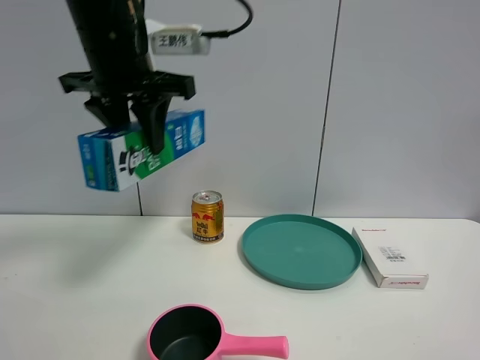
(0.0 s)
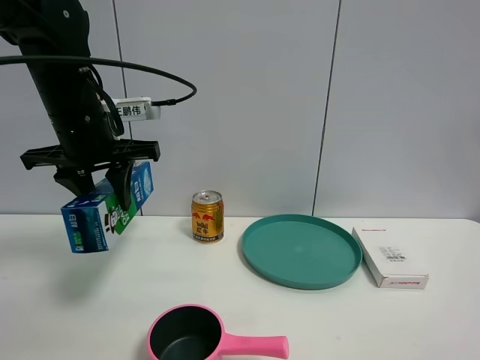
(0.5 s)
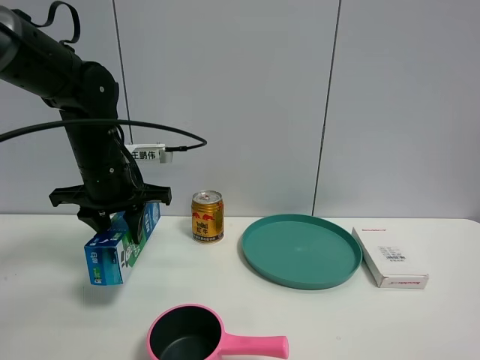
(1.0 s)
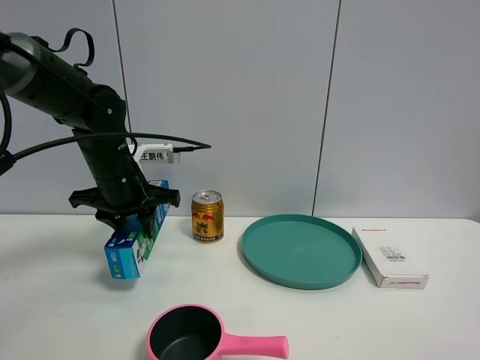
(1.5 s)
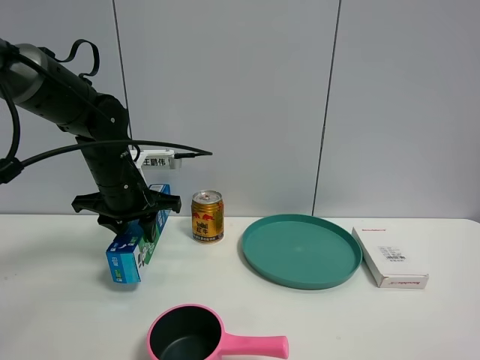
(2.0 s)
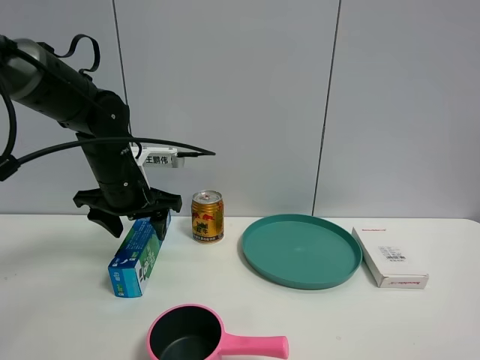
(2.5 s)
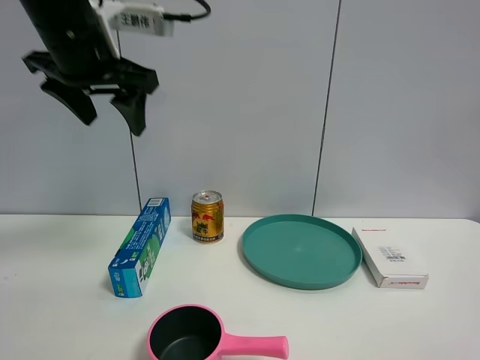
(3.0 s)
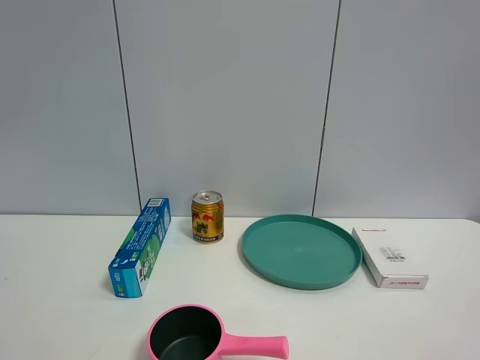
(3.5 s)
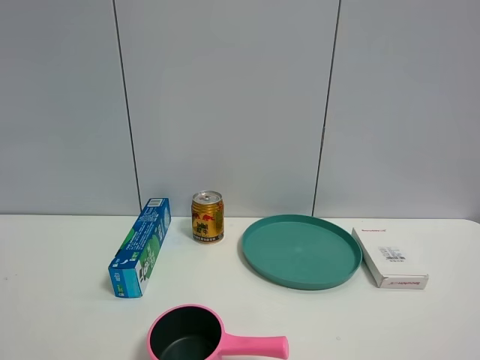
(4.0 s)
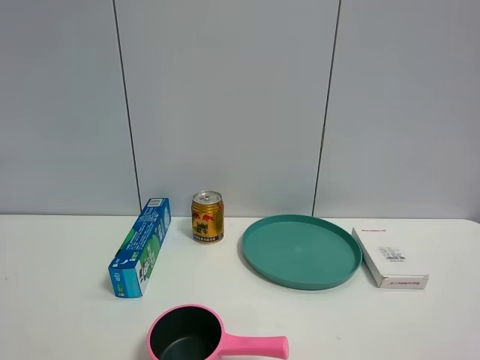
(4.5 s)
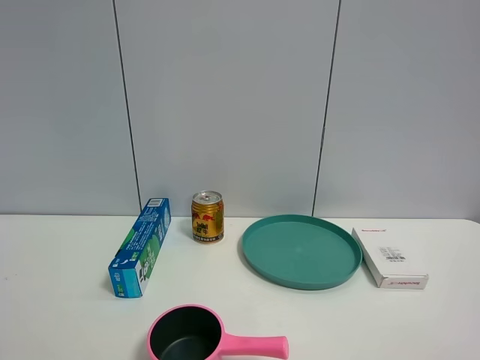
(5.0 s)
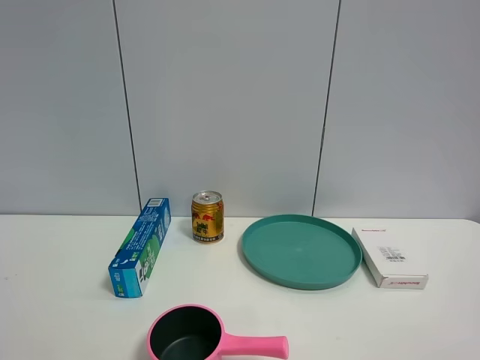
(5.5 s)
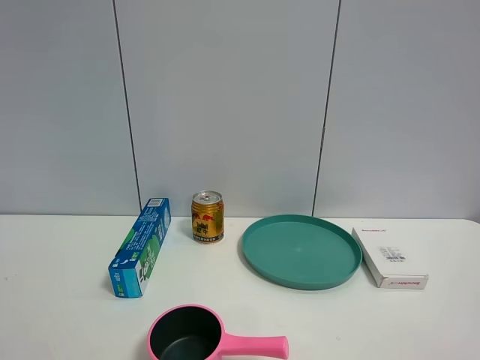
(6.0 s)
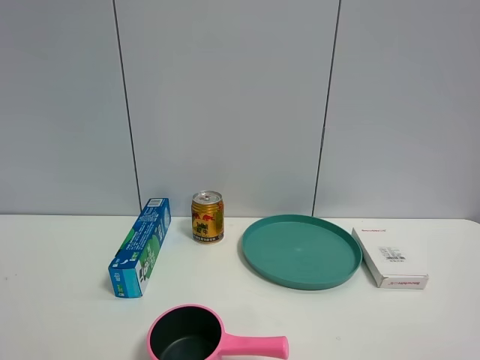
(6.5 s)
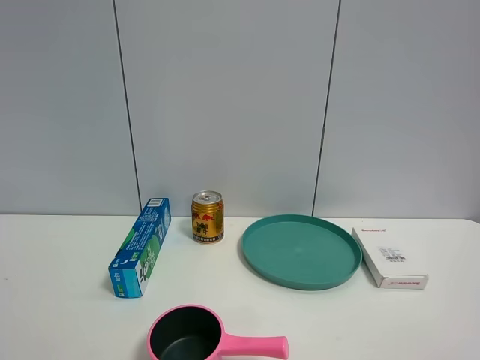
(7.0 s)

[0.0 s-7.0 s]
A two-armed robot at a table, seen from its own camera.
Task of the whole recording: the gripper move the object.
Step, 0.0 to 2.0 s: Place the toothpaste on the table with the left gripper.
0.0 to 2.0 s: The left gripper shifts about 15 cm downward.
2.0 to 3.5 s: The left gripper moves upward and backward, approximately 40 cm, and opens.

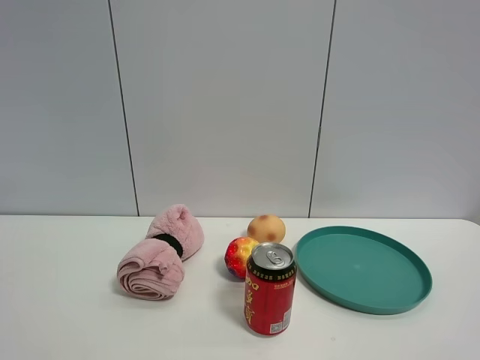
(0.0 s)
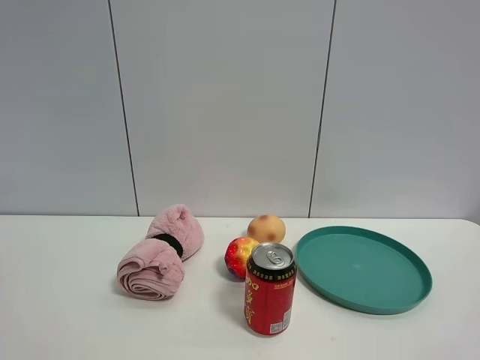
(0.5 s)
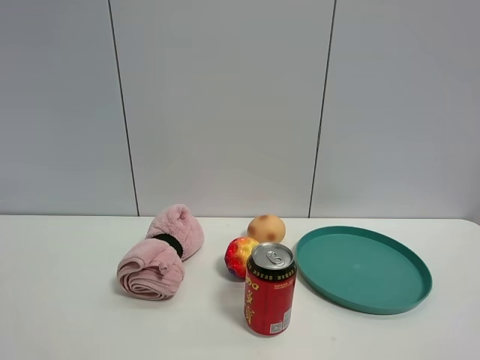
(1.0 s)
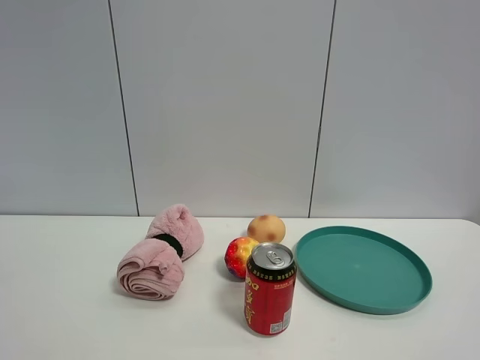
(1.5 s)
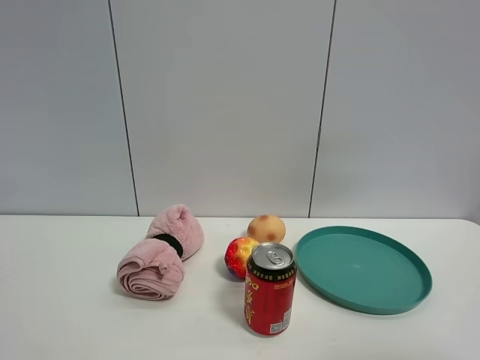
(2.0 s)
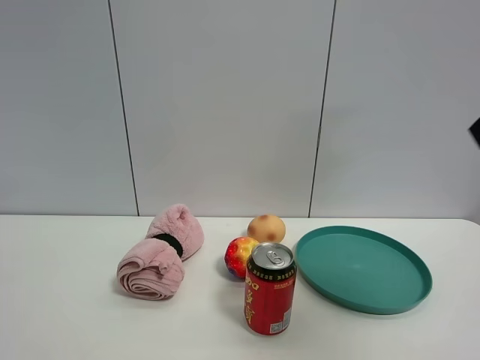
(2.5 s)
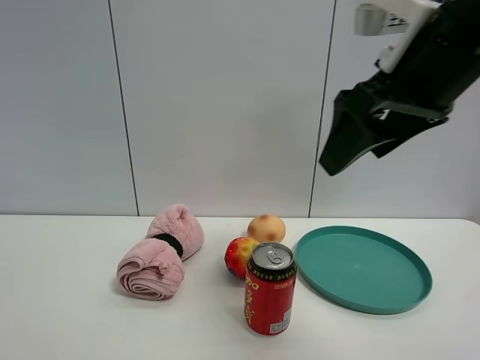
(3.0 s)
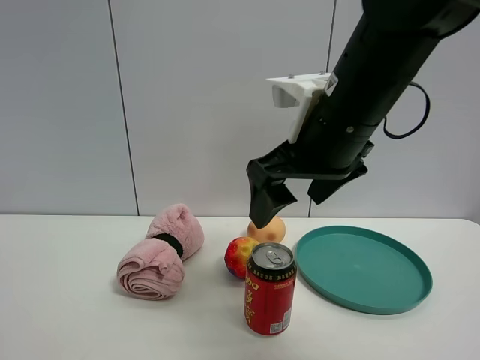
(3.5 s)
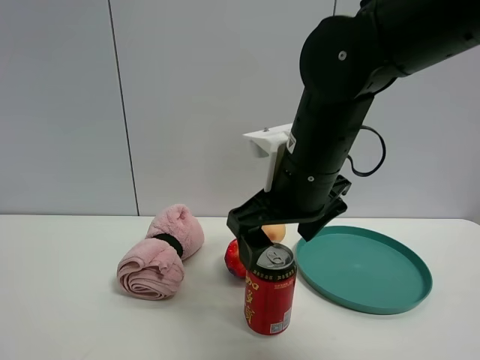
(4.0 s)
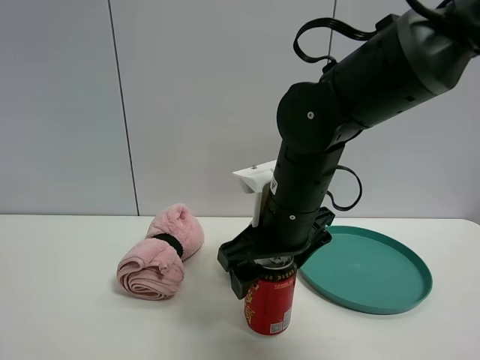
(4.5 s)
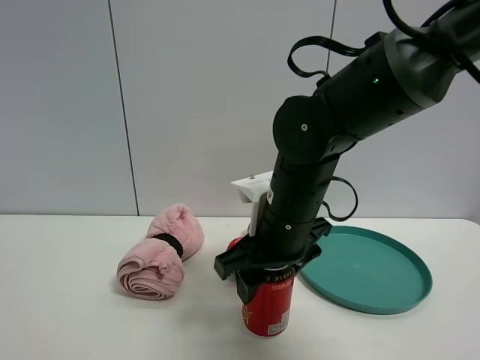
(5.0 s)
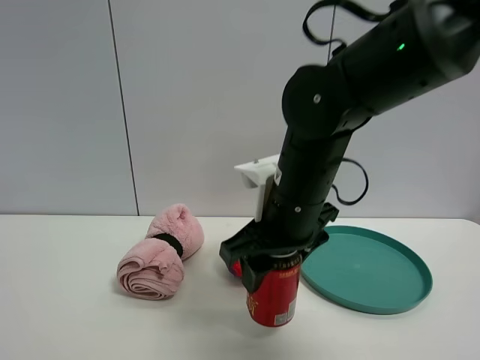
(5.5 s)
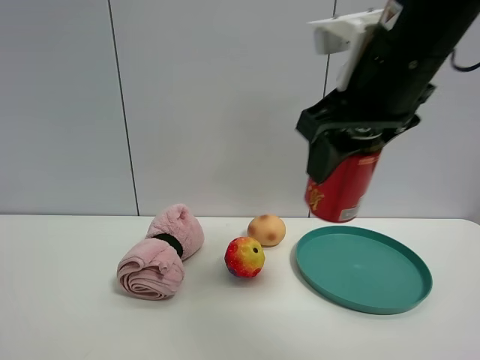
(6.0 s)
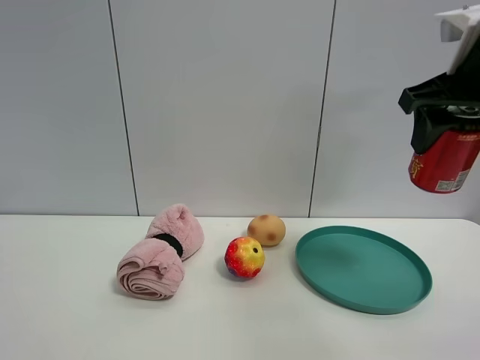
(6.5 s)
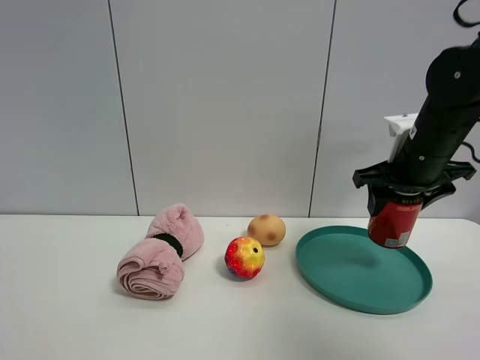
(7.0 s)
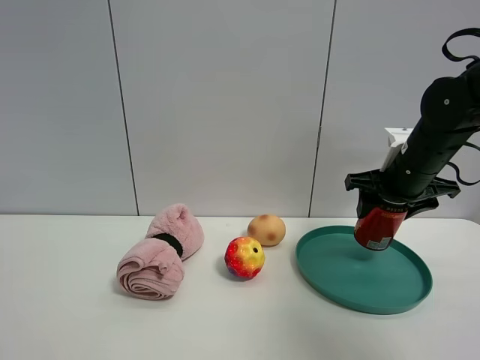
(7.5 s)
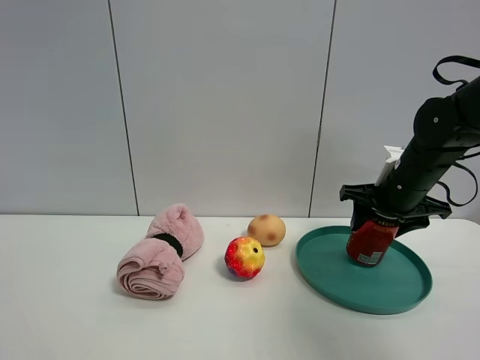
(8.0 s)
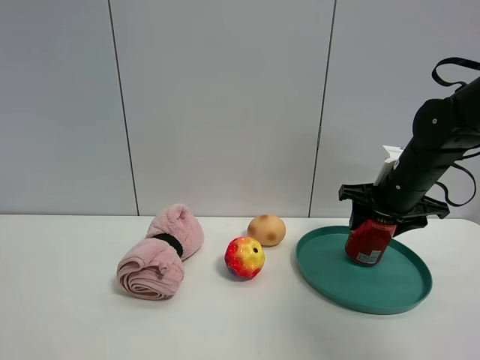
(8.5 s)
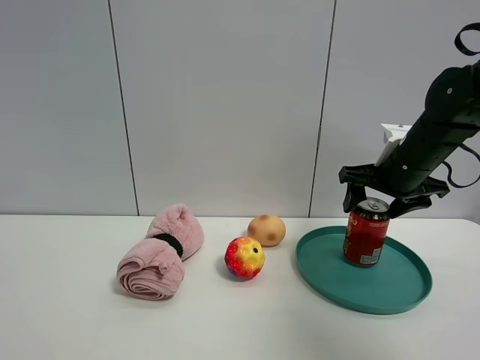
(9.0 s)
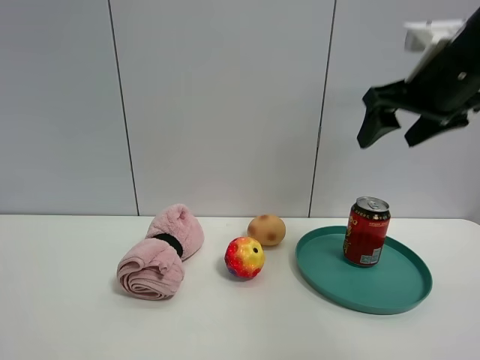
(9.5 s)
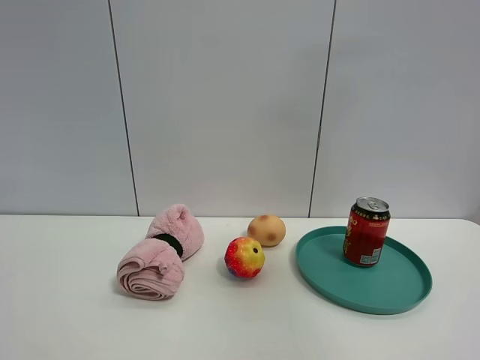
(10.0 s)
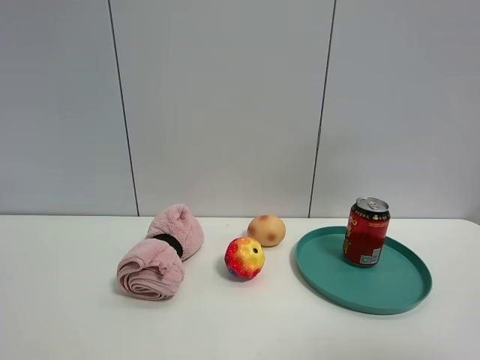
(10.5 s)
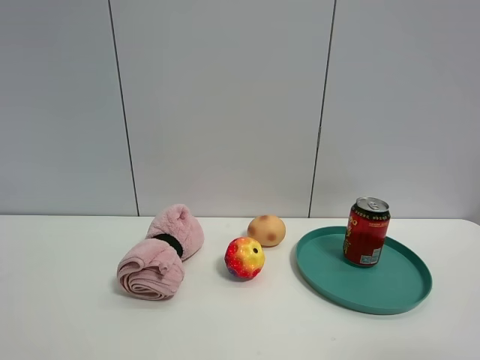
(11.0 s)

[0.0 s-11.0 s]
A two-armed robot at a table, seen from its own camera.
Task of the whole recording: the gripper move the object.
Step, 0.0 to 5.0 s: Grasp the Jia Duo Bao with the right gripper.
Step, 5.5 to 9.0 s: Place the Jia Duo Bao into the green plate with the right gripper.
2.0 to 3.5 s: The right gripper is displaced forward, to the left and downward by about 35 cm, and opens its fingers.
3.5 to 5.5 s: The right gripper shifts approximately 5 cm downward, and closes up.
5.5 to 7.5 s: The right gripper moves to the right and forward, some 20 cm.
7.5 to 9.0 s: The right gripper opens up.
9.0 to 11.0 s: The right gripper goes about 35 cm backward.

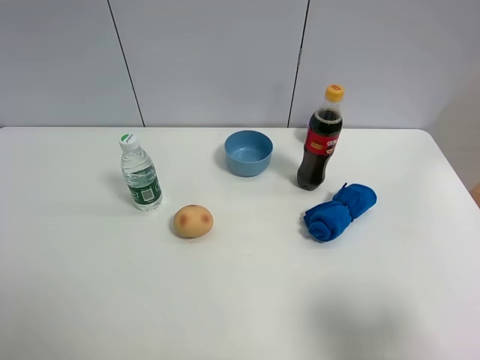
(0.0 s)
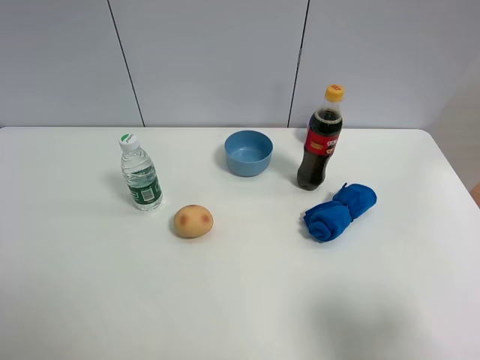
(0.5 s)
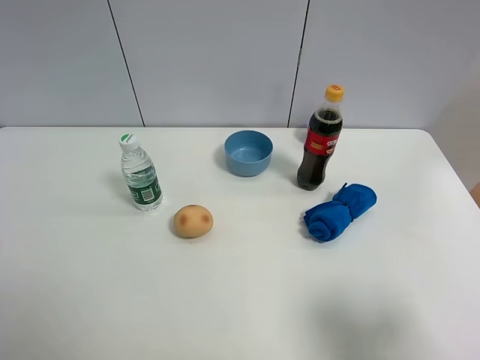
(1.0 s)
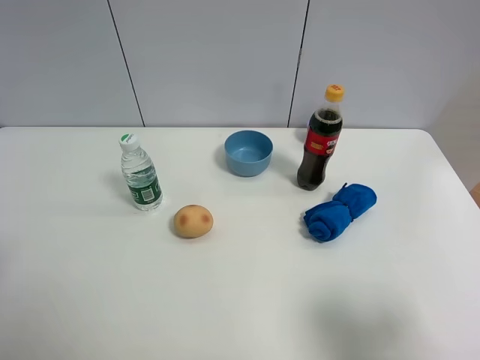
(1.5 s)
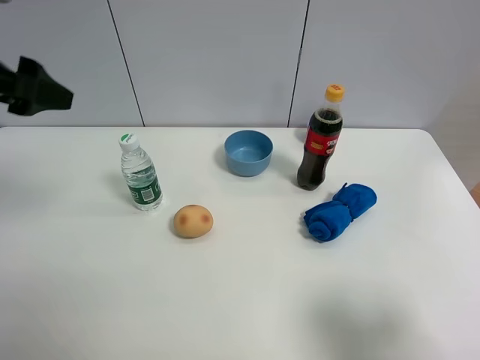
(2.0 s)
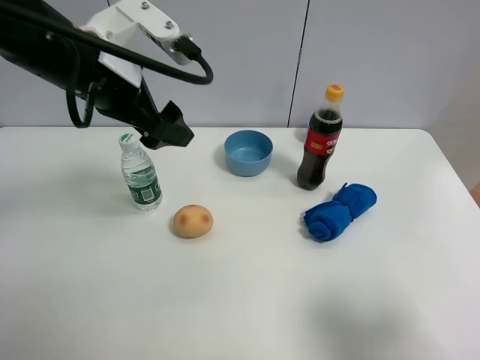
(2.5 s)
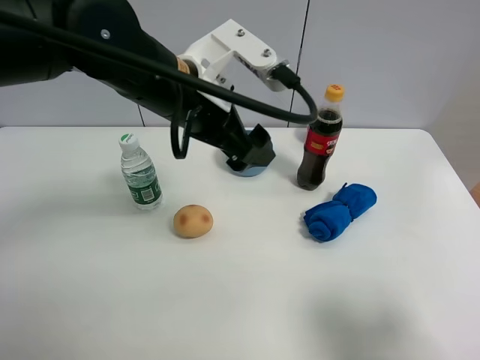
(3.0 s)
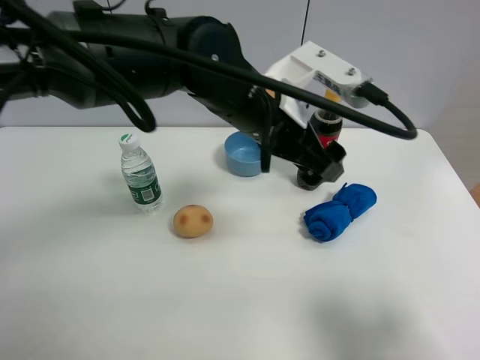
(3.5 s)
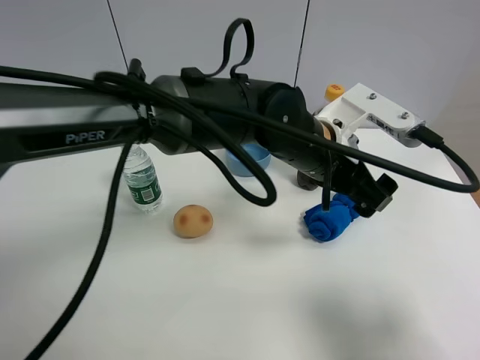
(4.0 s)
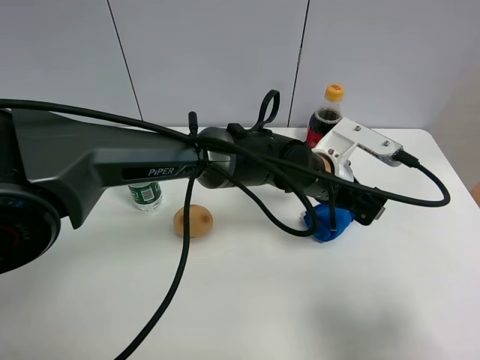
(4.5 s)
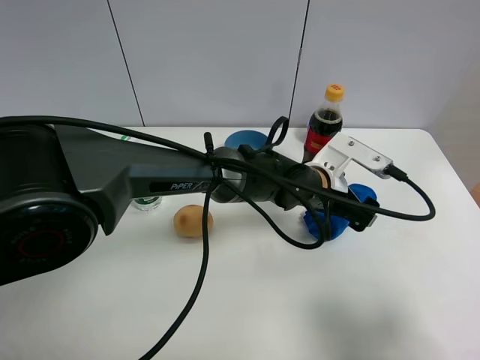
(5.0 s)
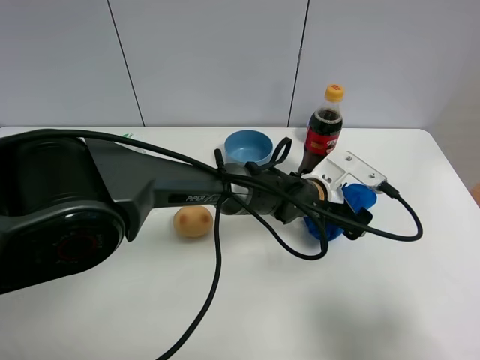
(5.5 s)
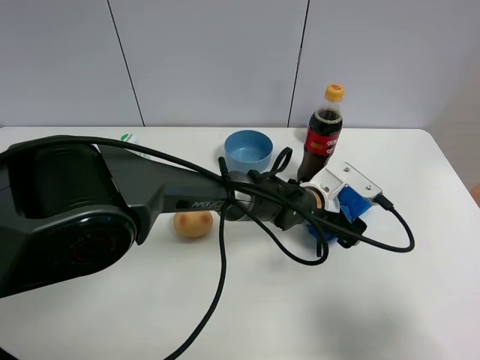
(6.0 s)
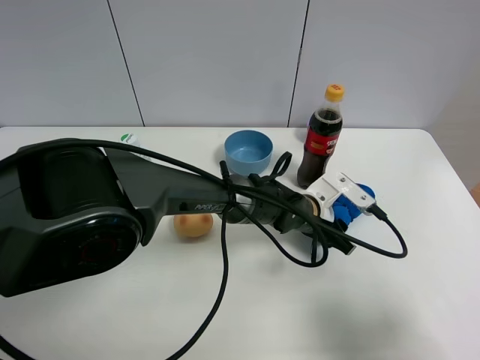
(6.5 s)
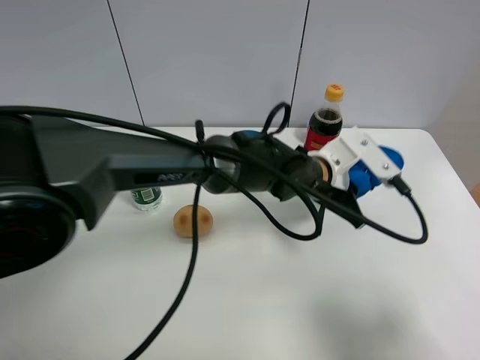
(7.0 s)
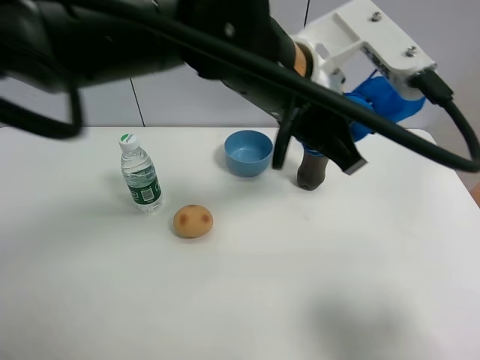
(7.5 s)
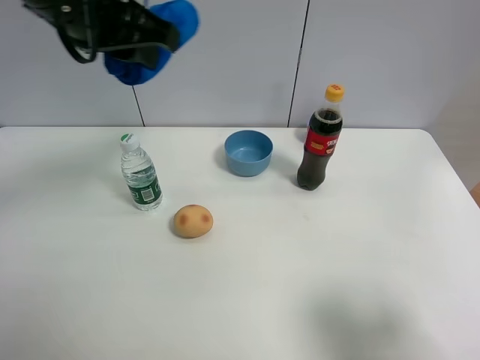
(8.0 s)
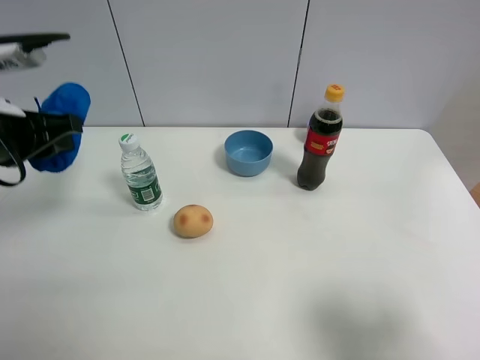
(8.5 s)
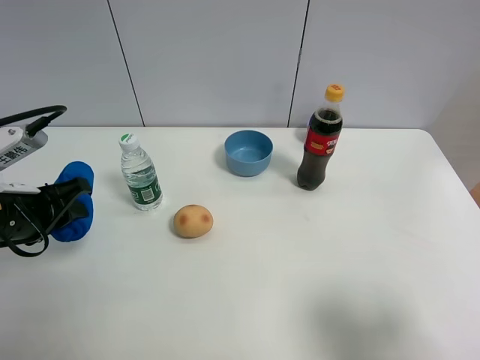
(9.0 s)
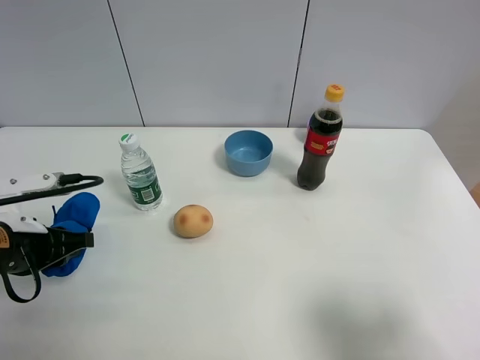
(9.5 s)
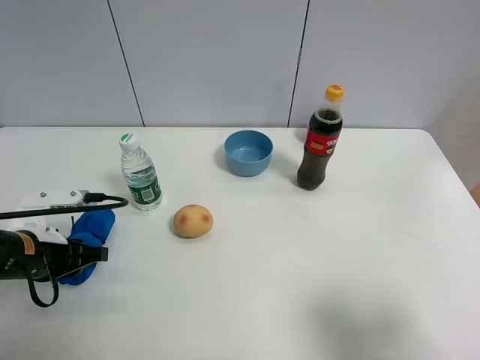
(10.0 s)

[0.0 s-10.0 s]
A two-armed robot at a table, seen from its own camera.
Task of the whole recording: the gripper move the object.
Step, 0.0 to 6.5 s: Grasp the blue towel with the left gripper.
0.0 to 2.0 s: The left gripper heads forward, covering roughly 25 cm.
2.0 to 4.0 s: The left gripper is displaced to the right and downward by approximately 40 cm.
4.0 to 6.0 s: The left gripper goes about 15 cm downward.
6.0 to 8.0 s: The left gripper shifts roughly 40 cm upward and to the left, and closes up.
8.0 to 10.0 s: The left gripper shifts some 25 cm downward.
